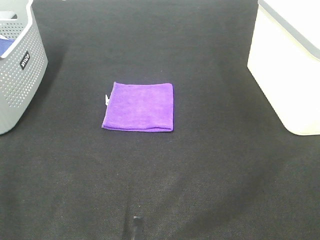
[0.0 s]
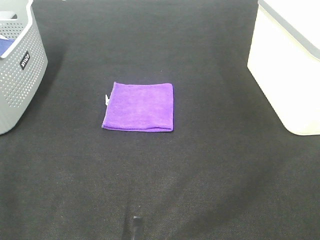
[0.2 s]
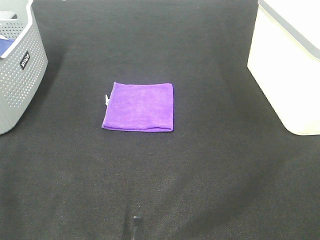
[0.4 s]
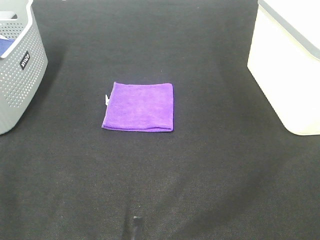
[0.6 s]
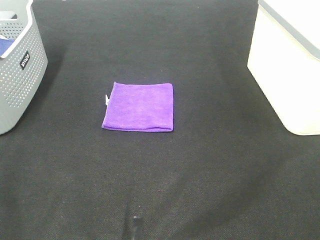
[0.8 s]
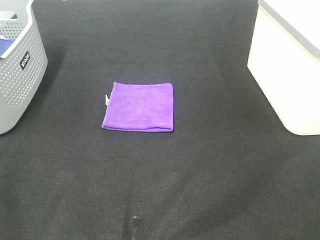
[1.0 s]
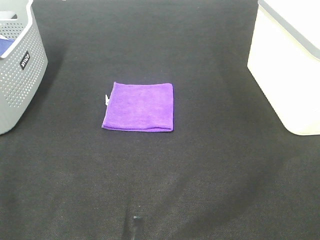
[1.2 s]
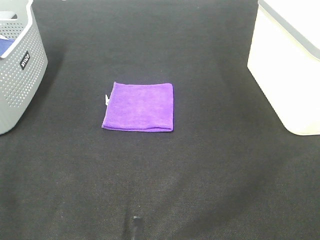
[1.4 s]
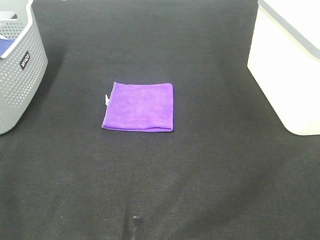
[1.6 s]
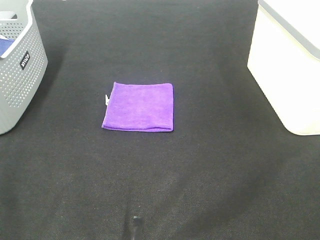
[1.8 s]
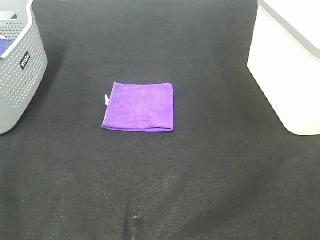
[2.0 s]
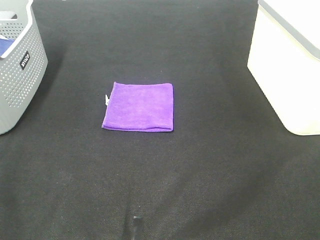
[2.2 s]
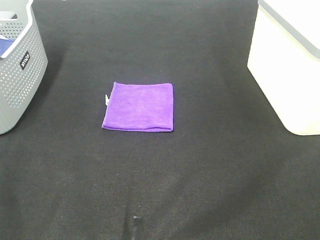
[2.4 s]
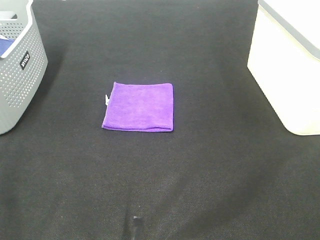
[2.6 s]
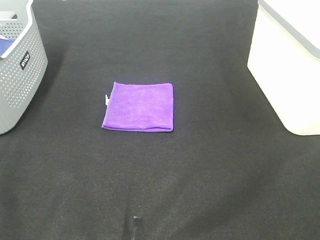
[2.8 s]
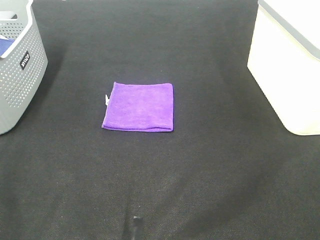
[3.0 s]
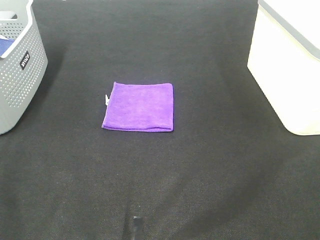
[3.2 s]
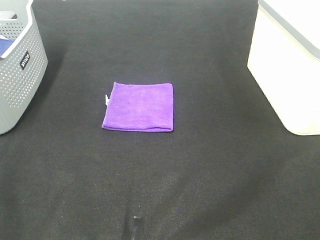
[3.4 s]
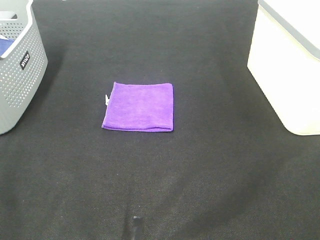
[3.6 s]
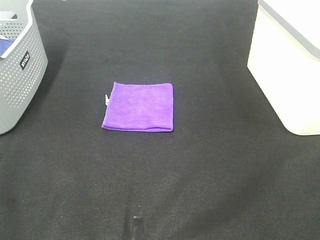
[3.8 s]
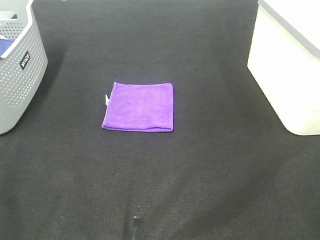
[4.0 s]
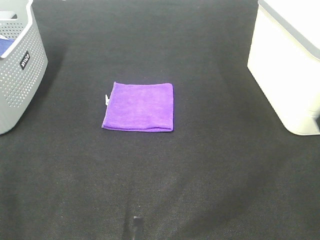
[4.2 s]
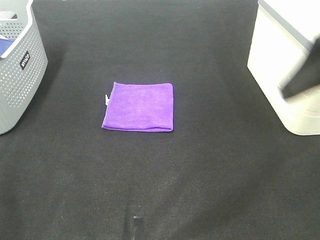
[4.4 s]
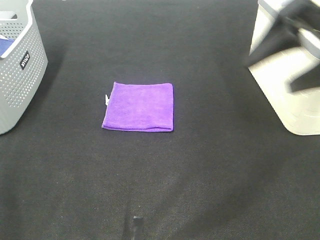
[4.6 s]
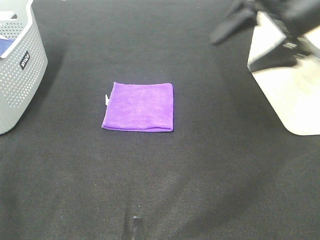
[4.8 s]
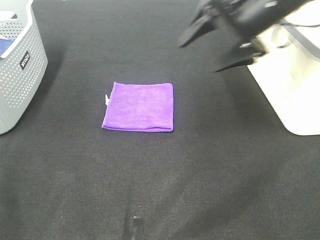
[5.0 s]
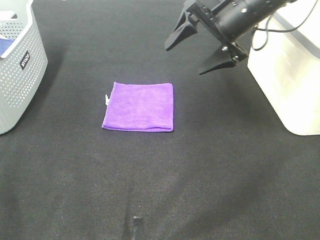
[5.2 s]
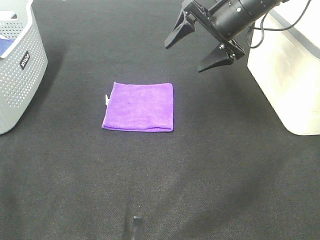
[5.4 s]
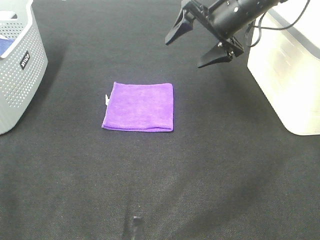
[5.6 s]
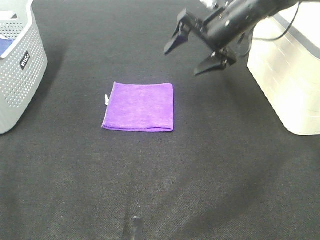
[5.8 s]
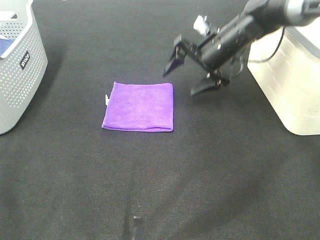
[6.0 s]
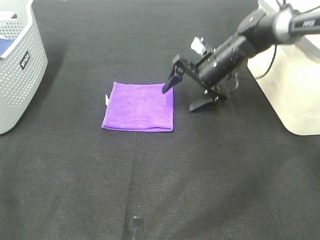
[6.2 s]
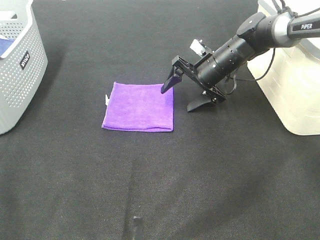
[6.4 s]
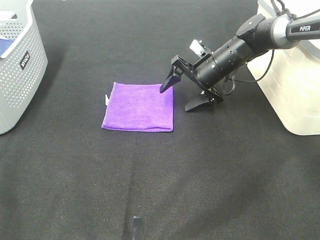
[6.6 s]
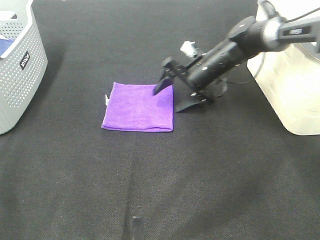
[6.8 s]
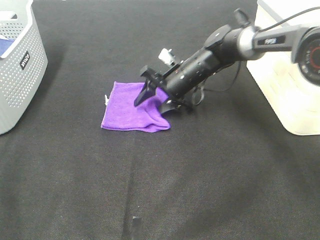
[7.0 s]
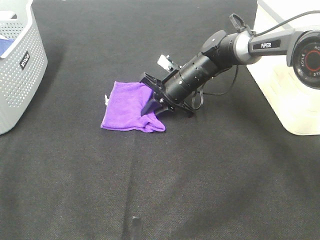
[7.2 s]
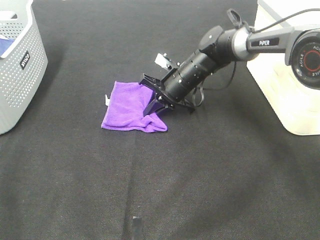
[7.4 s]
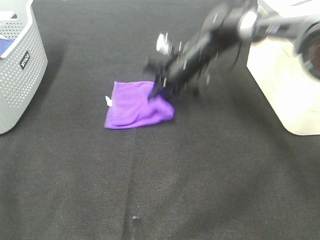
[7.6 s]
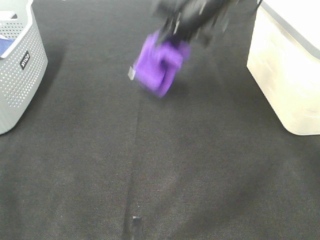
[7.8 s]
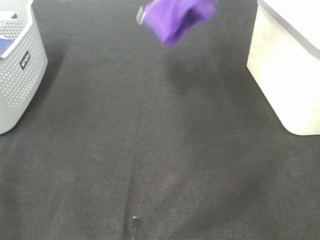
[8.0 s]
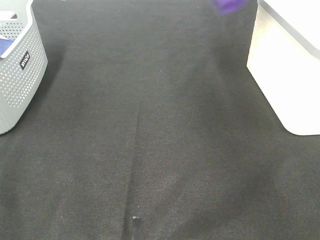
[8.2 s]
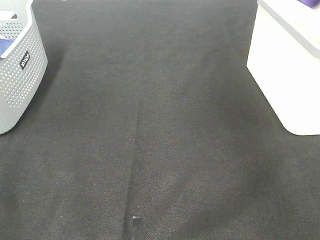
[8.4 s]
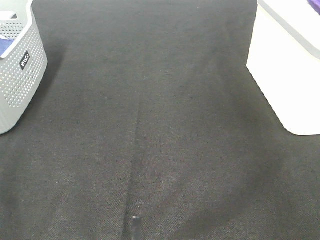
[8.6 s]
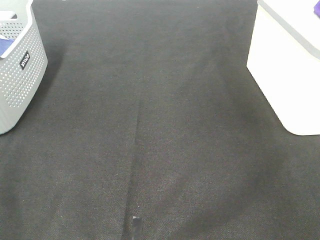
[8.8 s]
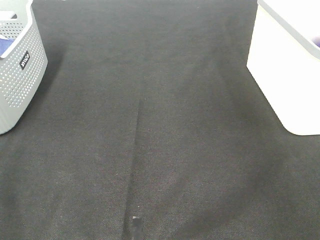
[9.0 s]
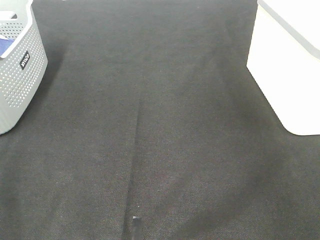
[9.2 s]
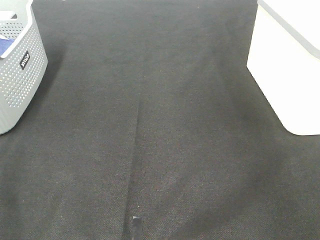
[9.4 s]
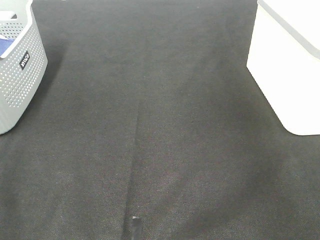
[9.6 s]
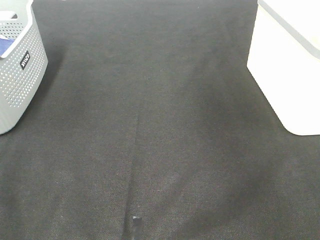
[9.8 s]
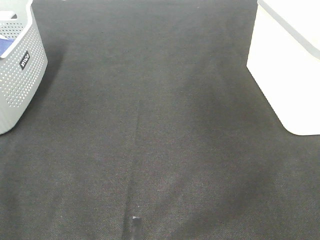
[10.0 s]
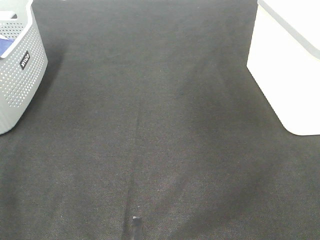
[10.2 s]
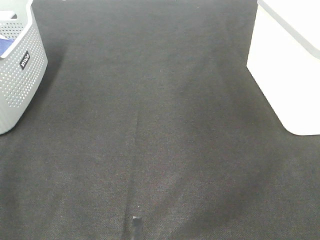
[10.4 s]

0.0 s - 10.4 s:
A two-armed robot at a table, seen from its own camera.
Step, 0.0 s - 7.2 s: Right hand: grab the folded purple towel.
Step, 7.4 s - 9.0 s: Right hand: place the purple towel in right basket.
0.0 s - 3.0 s: Both grippers stay about where they are.
3.0 s - 4.4 s: The right gripper travels forward by roughly 20 cm.
4.4 s - 6.0 s: The right gripper travels forward, downward and to the left by about 35 cm.
6.0 s - 7.4 s: The right gripper moves to the left and downward, some 10 cm, and closes up.
7.4 s - 9.0 s: The right gripper heads to the right and upward, covering approximately 40 cm, and opens.

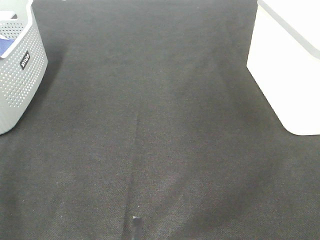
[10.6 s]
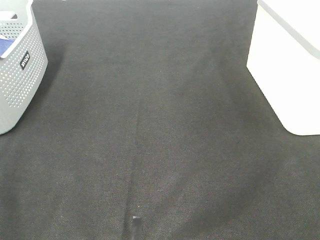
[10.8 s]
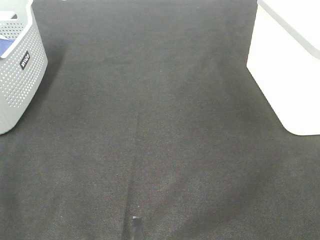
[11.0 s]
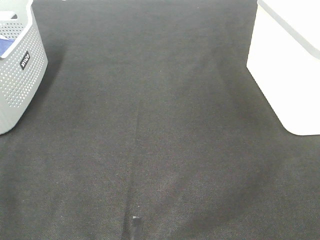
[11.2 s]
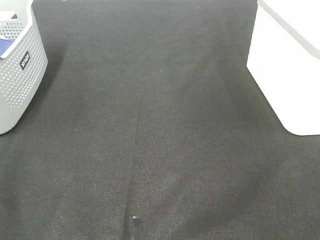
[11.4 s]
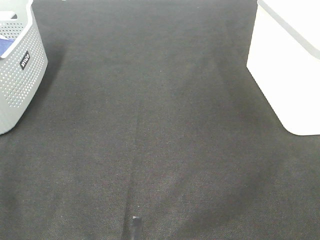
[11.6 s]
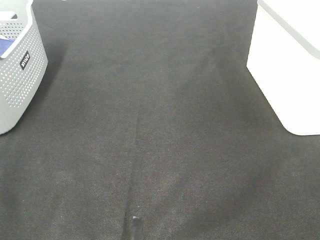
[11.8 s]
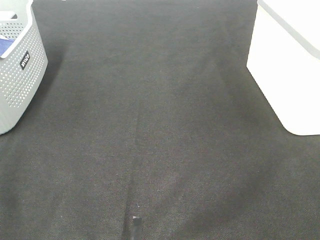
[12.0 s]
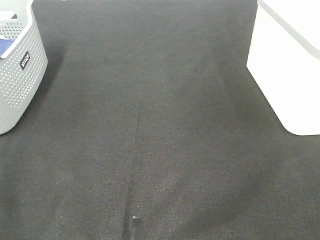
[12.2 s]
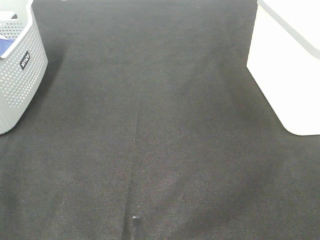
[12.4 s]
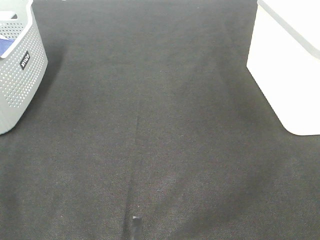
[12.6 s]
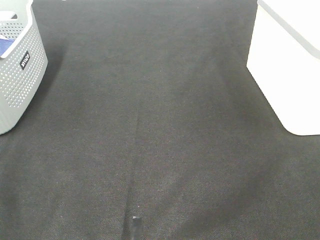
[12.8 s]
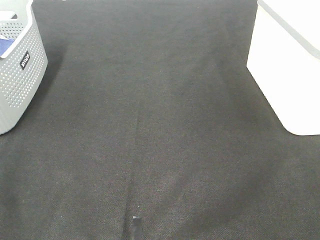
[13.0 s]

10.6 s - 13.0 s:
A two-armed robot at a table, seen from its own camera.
11.8 s - 13.0 s: Both grippers stay put.

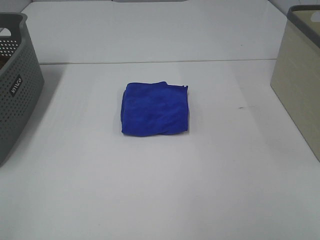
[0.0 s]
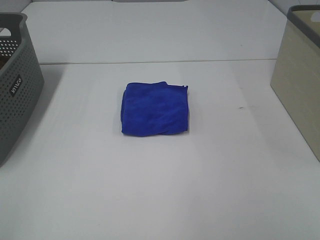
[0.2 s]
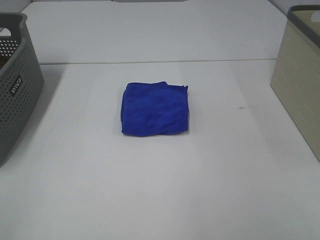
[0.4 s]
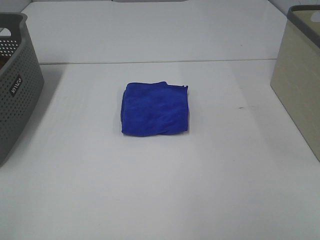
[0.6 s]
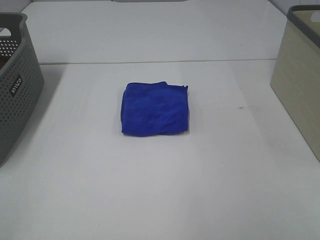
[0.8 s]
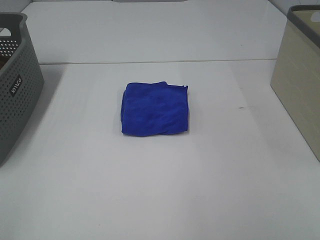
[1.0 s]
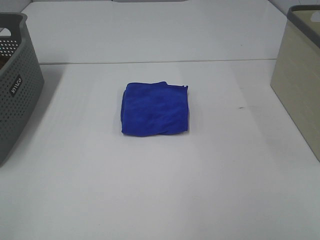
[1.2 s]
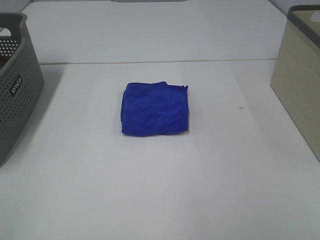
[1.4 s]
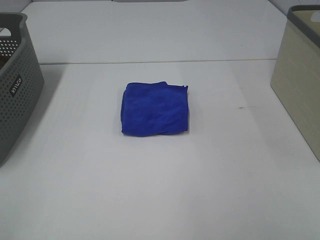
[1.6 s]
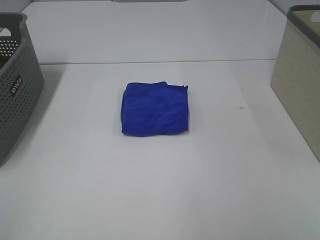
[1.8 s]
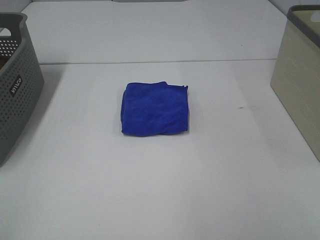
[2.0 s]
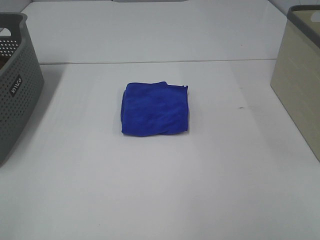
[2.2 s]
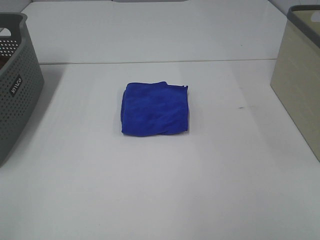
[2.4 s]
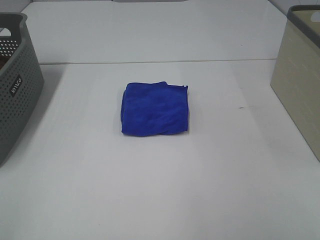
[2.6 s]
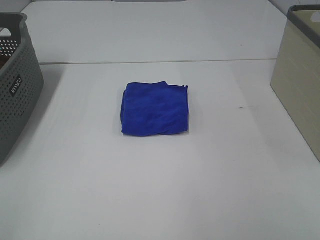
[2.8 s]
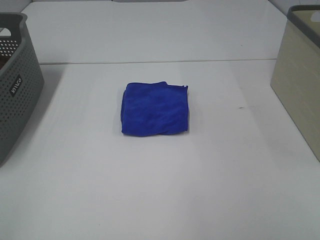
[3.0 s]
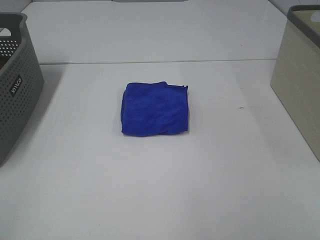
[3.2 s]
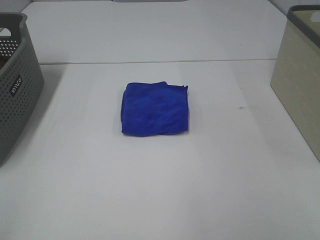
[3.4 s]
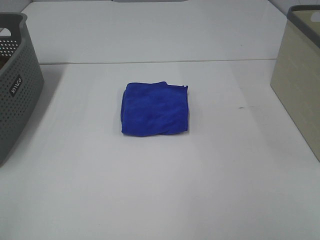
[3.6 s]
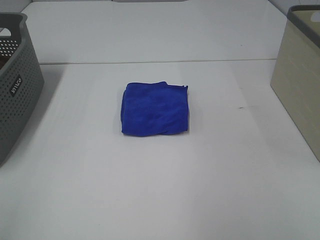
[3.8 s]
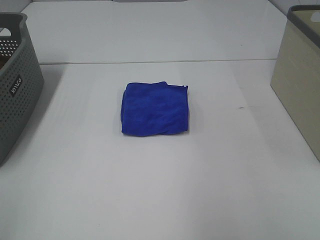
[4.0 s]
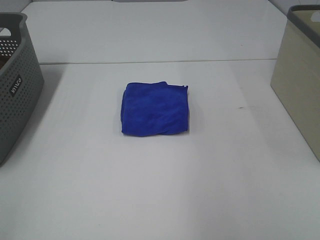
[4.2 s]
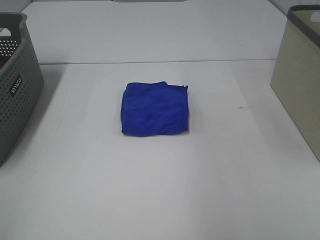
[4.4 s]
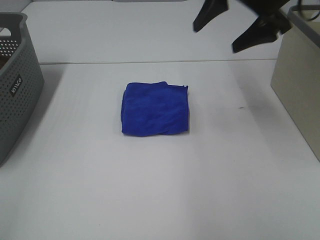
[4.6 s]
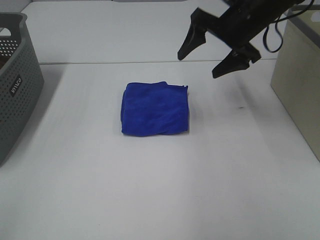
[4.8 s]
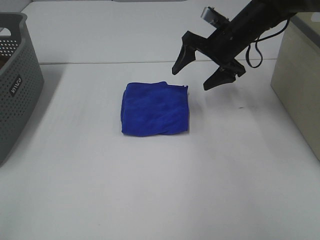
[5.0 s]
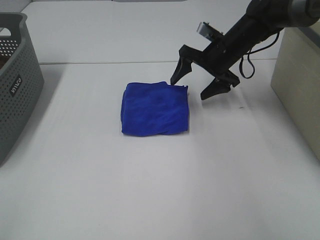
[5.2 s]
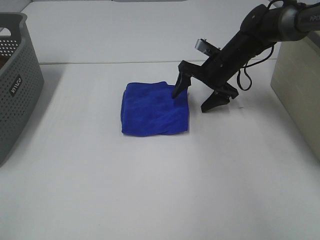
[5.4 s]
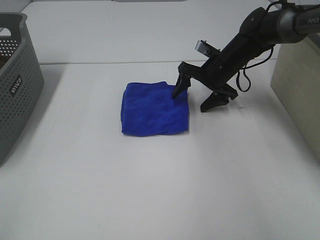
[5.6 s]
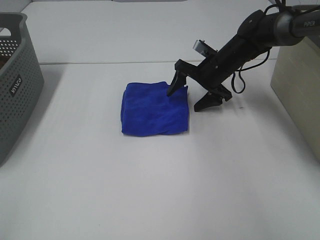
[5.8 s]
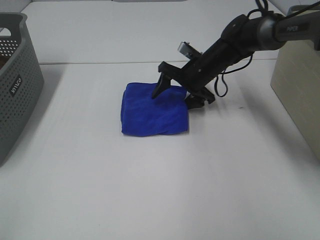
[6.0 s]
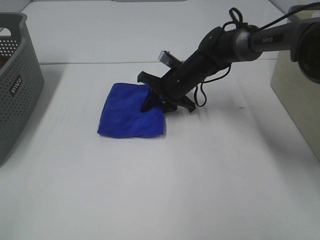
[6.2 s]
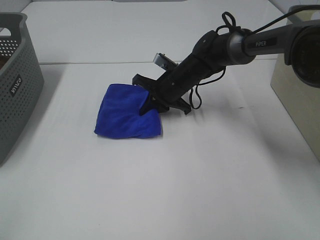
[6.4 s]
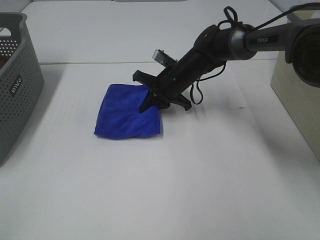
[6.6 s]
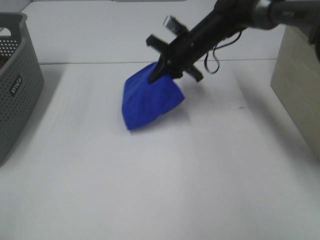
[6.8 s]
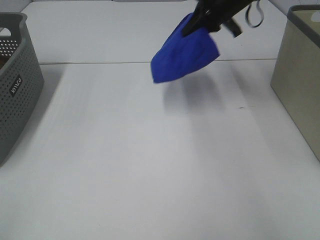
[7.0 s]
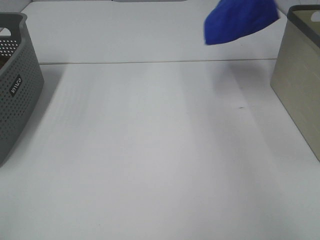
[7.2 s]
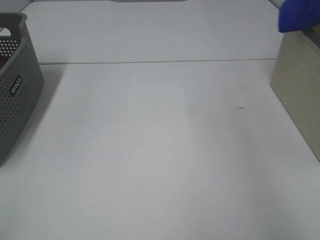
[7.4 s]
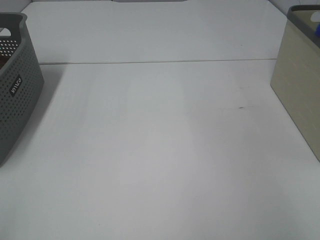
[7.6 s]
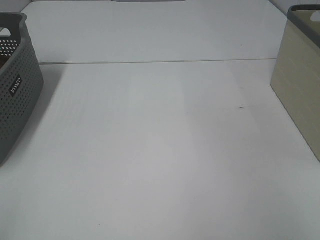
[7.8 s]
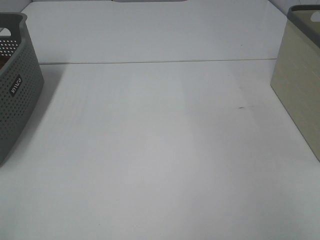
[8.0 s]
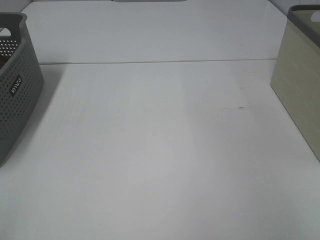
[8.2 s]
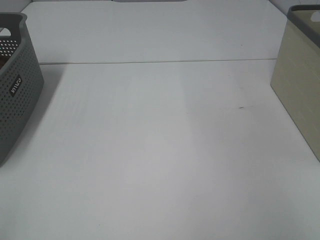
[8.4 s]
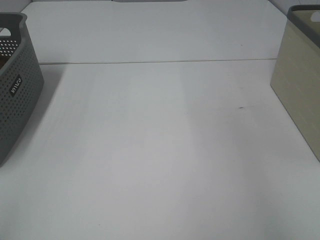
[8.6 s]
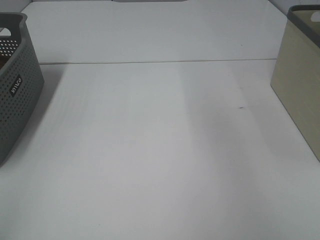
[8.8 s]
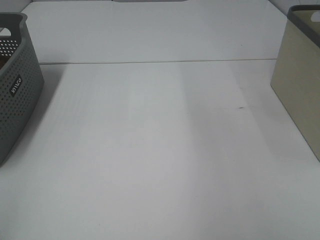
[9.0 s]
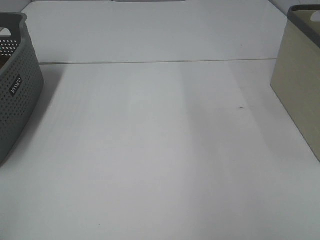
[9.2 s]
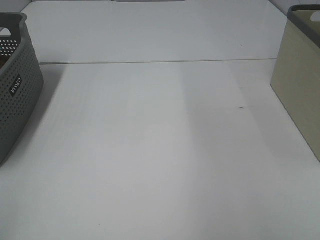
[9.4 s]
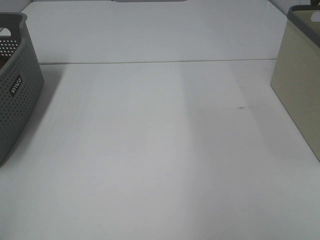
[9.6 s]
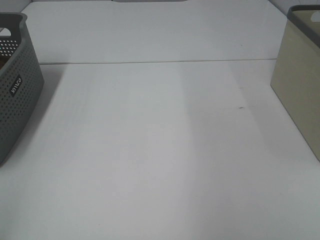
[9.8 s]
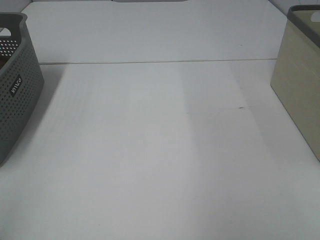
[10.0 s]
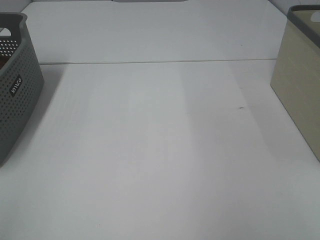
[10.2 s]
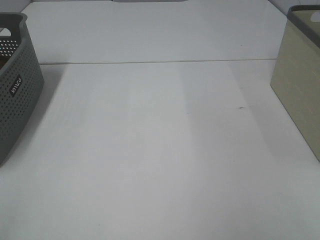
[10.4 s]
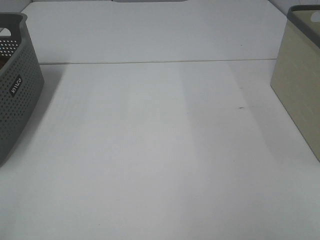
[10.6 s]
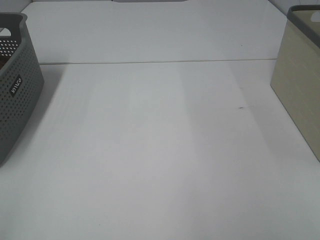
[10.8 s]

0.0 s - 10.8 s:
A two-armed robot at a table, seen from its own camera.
Step, 0.0 s - 6.4 s: Right hand: grab the folded blue towel.
Step, 6.6 s - 8.2 s: Right hand: place the blue towel in right basket.
0.0 s - 3.0 s: Both grippers stay about where they are.
3.0 s - 4.6 s: The right gripper goes about 40 cm forward.
4.6 s - 6.2 s: The right gripper moves downward and to the left, about 25 cm, and closes its fingers.
6.2 s - 7.8 s: The right gripper travels to the right and upward by roughly 50 cm.
